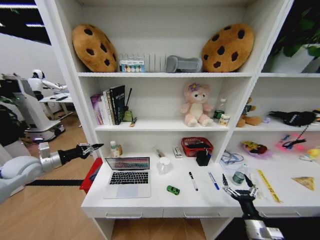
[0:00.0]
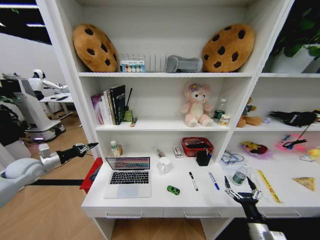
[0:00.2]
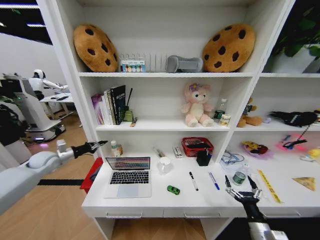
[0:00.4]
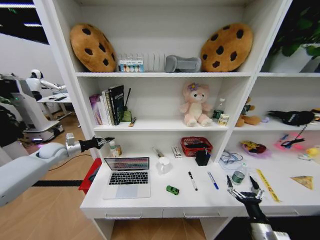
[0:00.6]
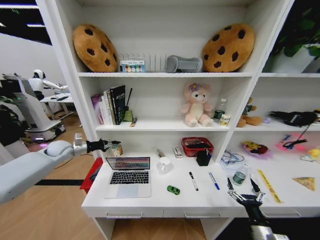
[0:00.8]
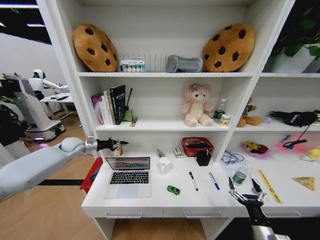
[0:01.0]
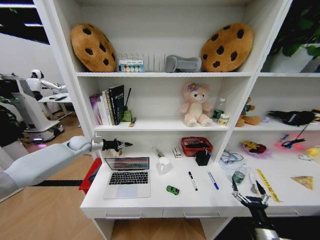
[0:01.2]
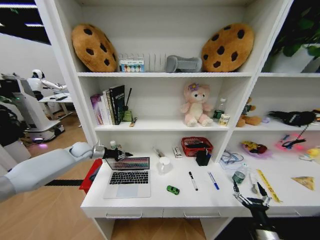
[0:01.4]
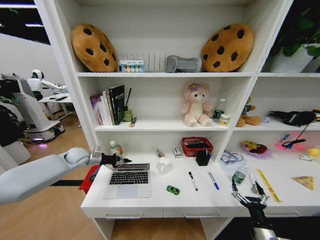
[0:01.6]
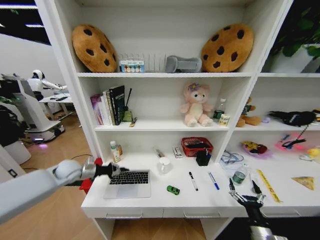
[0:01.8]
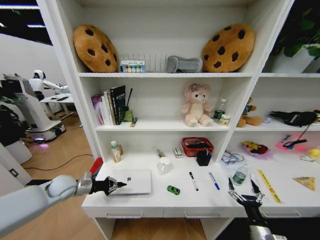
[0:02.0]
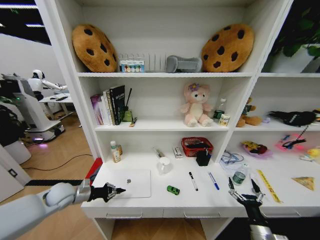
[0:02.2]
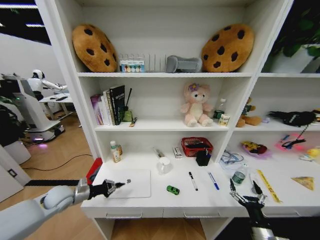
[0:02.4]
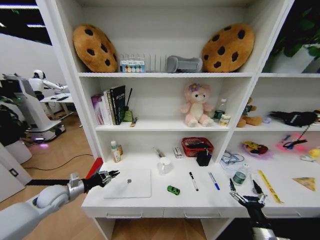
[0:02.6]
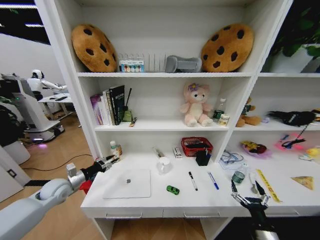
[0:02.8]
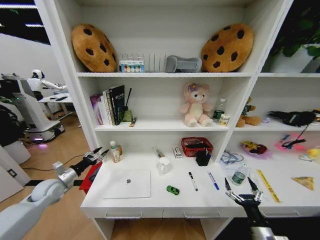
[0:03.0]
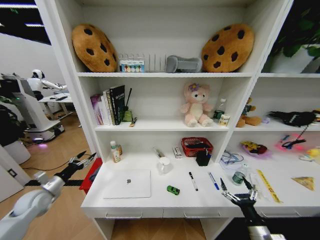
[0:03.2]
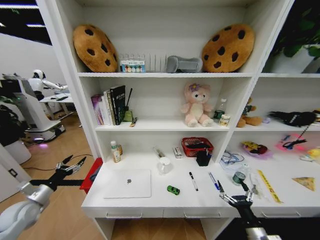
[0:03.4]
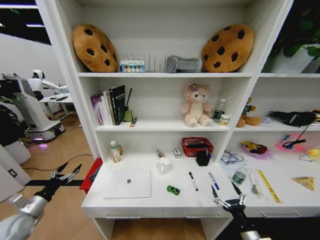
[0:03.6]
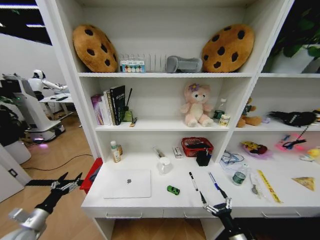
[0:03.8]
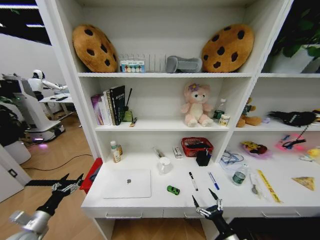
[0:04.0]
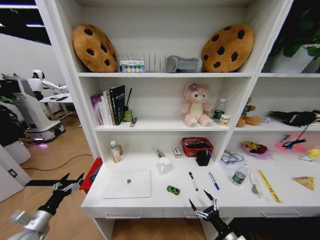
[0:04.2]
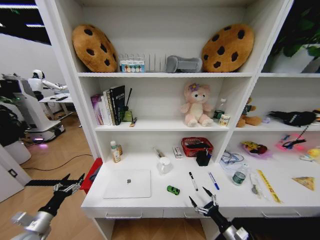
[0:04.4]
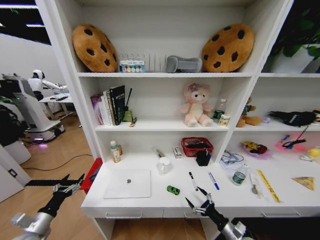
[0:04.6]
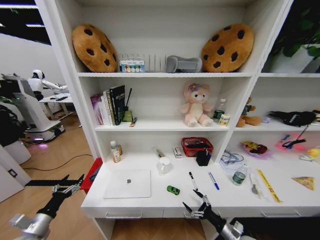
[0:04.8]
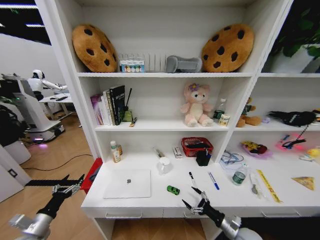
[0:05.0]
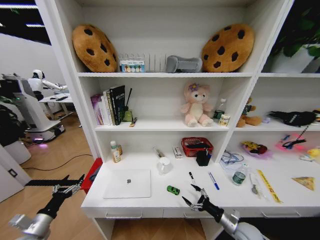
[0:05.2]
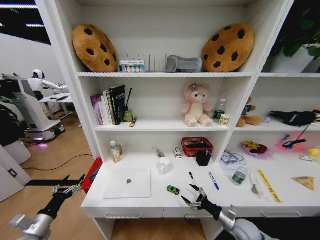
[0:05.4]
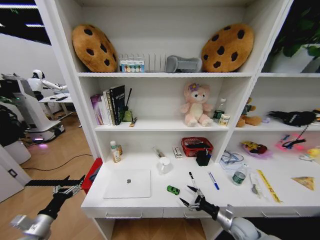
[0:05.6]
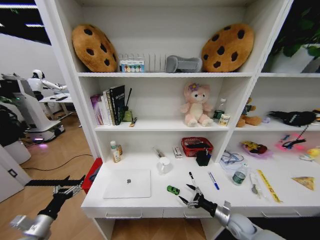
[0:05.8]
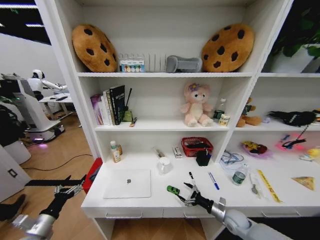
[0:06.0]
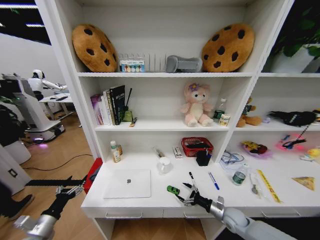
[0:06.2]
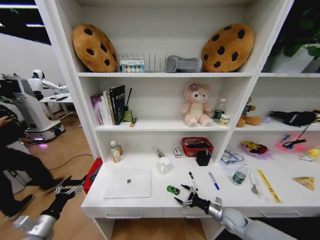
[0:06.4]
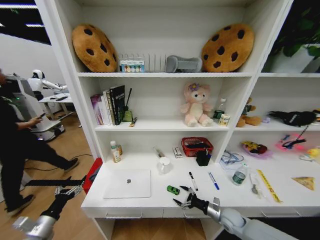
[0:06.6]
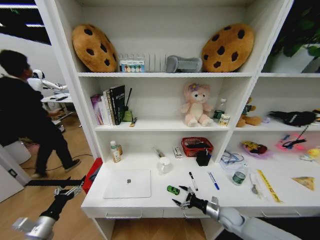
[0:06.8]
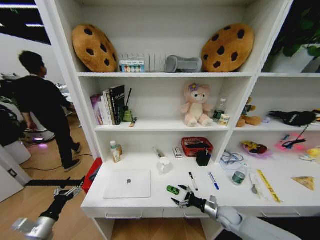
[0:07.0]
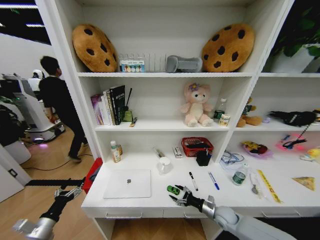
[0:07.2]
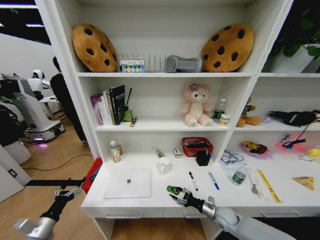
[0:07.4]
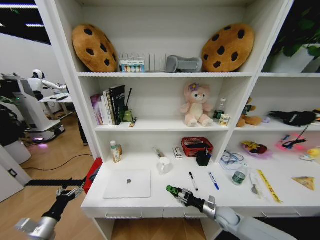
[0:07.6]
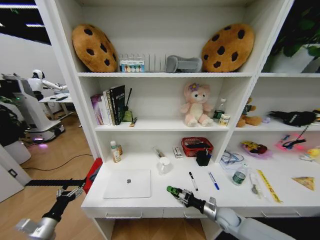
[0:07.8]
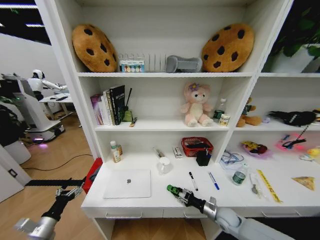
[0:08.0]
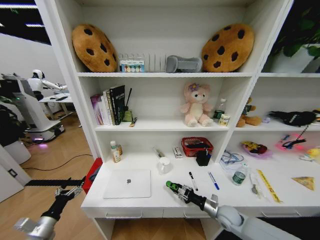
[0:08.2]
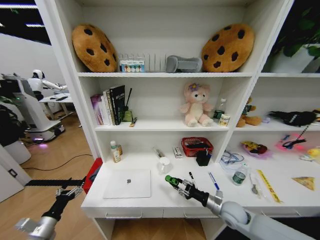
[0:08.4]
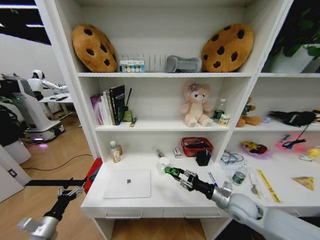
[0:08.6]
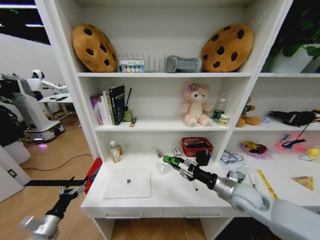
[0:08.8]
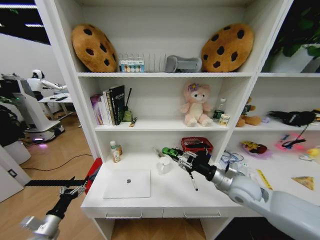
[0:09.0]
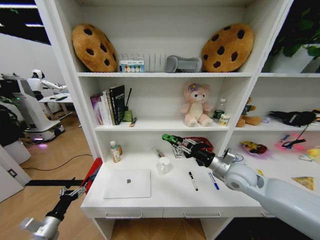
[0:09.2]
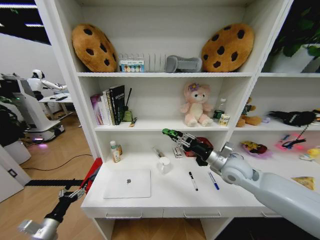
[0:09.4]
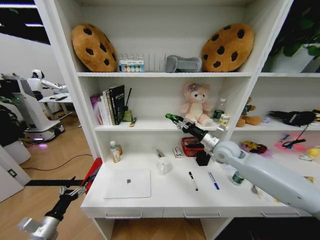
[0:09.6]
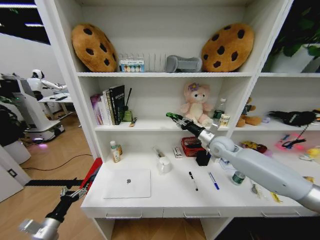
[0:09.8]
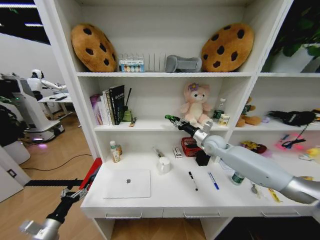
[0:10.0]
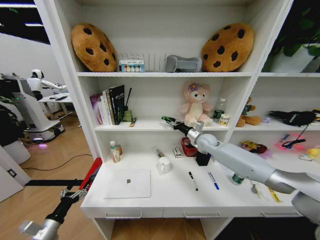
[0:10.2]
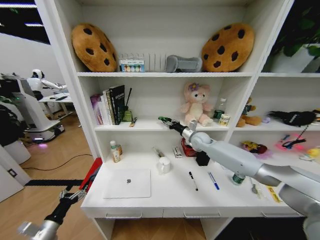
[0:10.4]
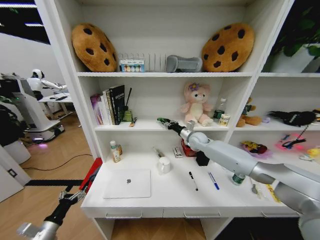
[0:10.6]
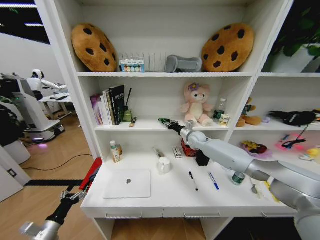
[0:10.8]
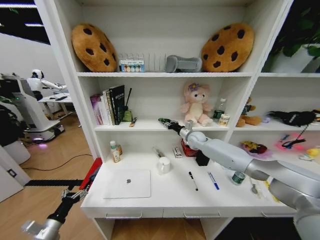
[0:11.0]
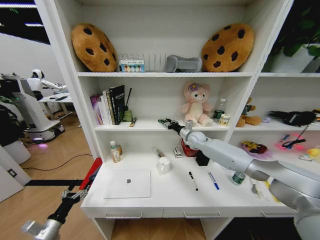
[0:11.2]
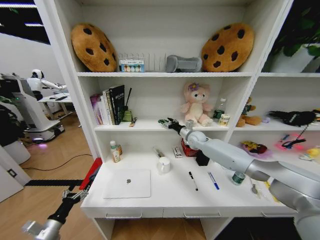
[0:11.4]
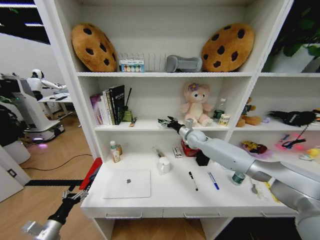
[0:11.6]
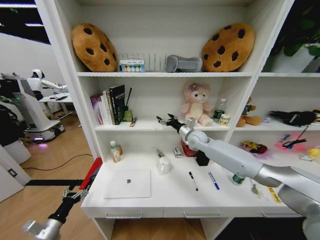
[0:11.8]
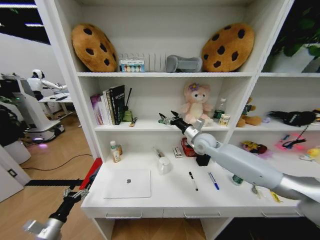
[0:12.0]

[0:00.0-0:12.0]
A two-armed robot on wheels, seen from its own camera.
Task of the whole recording: Organize the objects on the table.
0:00.0 to 0:01.6: The left gripper is displaced to the right, forward and downward by approximately 15 cm.
0:01.6 to 0:03.0: The left gripper heads backward, to the left and downward, covering approximately 15 cm, and opens.
0:03.0 to 0:04.4: The left gripper goes some 20 cm backward and downward, and opens its fingers. The right gripper goes roughly 5 cm downward.
0:04.4 to 0:06.0: The right gripper is displaced forward by about 10 cm.
0:06.0 to 0:07.6: The right gripper closes.
0:07.6 to 0:09.0: The right gripper moves upward, approximately 25 cm.
0:09.0 to 0:10.4: The right gripper travels forward by about 25 cm.
0:10.4 to 0:12.0: The right gripper goes approximately 5 cm backward, and opens.

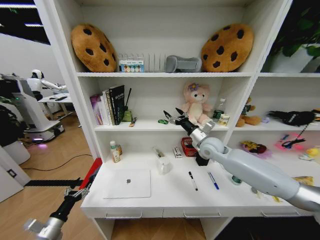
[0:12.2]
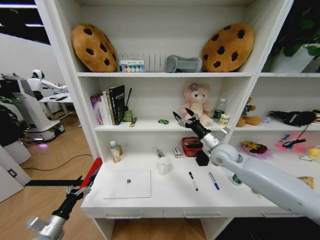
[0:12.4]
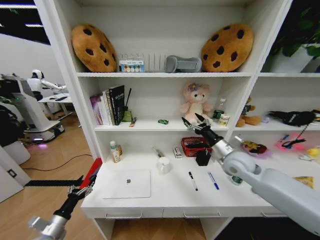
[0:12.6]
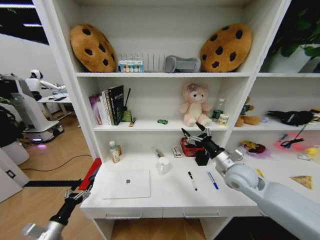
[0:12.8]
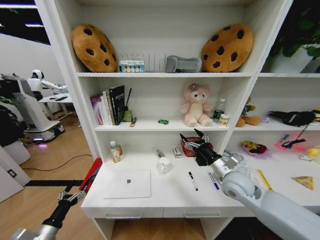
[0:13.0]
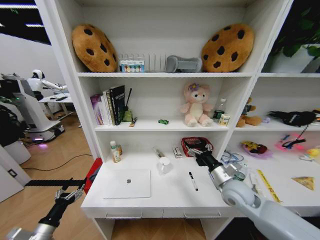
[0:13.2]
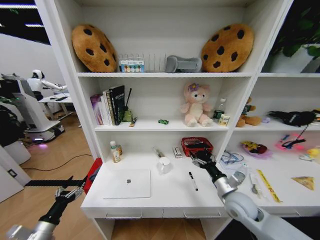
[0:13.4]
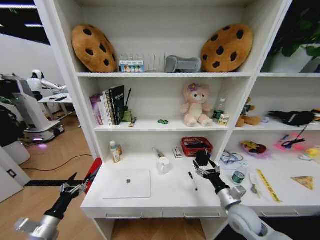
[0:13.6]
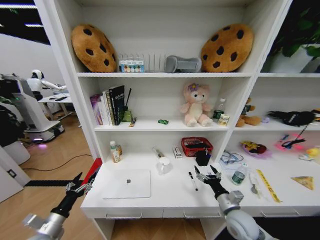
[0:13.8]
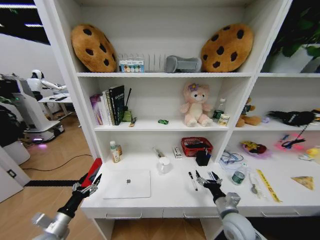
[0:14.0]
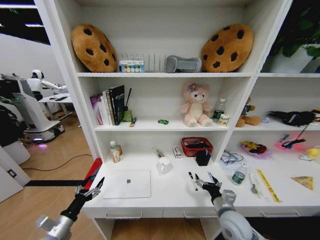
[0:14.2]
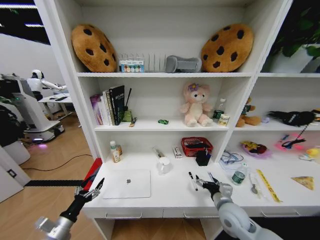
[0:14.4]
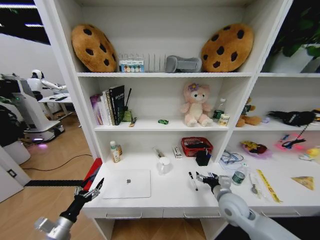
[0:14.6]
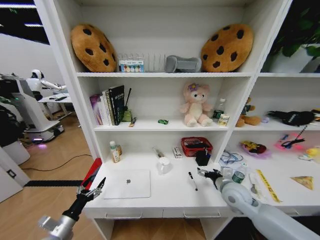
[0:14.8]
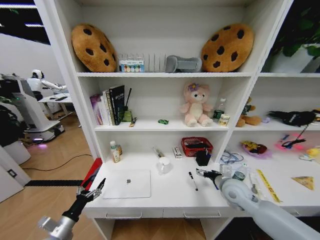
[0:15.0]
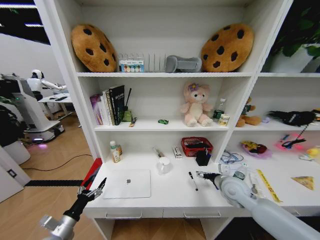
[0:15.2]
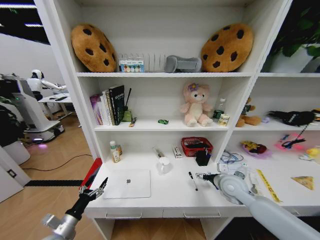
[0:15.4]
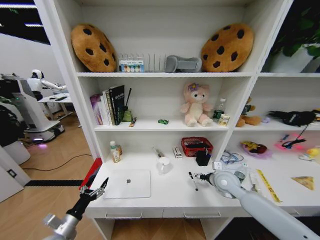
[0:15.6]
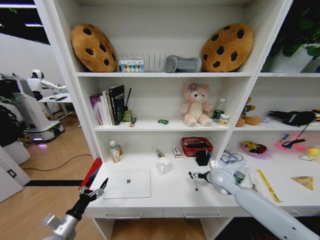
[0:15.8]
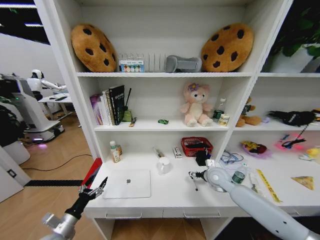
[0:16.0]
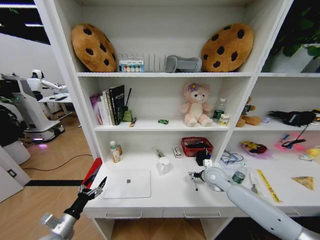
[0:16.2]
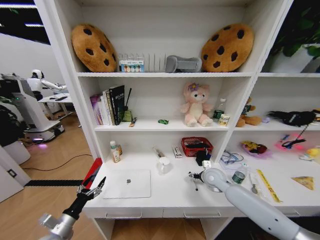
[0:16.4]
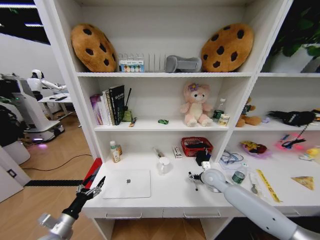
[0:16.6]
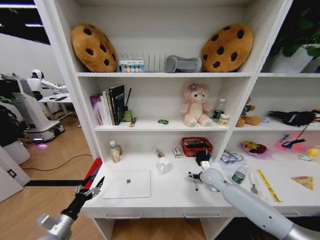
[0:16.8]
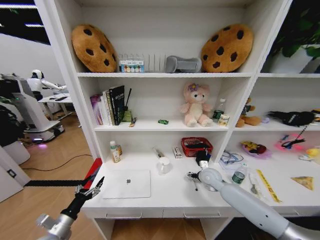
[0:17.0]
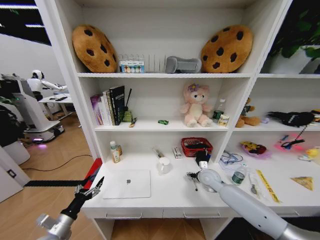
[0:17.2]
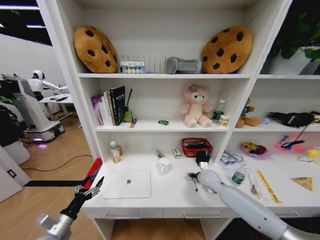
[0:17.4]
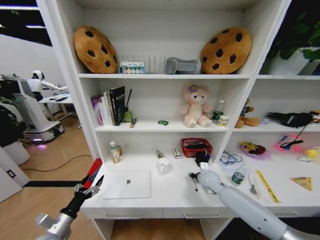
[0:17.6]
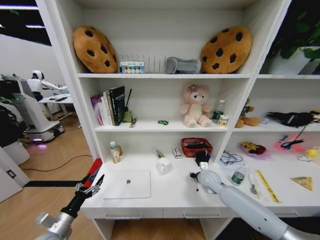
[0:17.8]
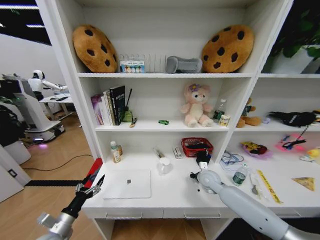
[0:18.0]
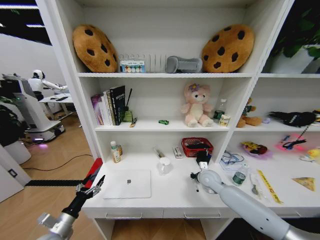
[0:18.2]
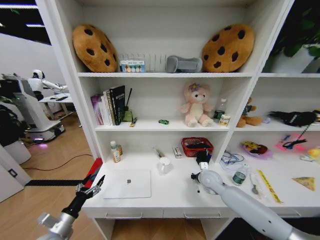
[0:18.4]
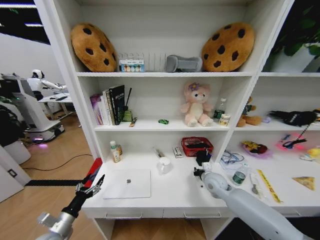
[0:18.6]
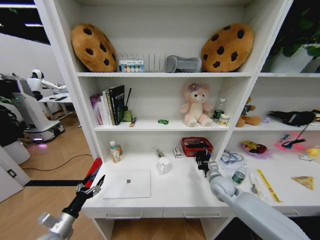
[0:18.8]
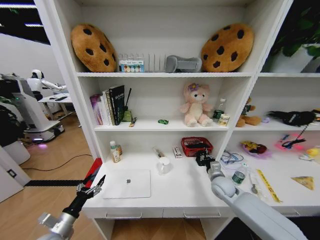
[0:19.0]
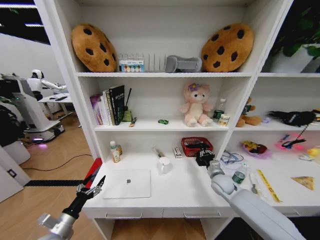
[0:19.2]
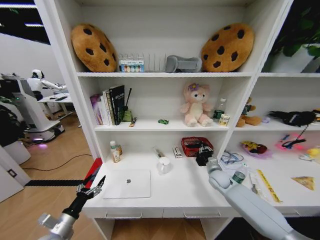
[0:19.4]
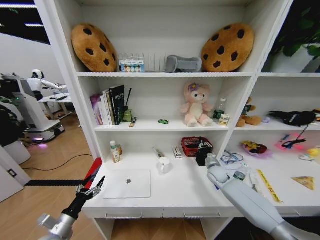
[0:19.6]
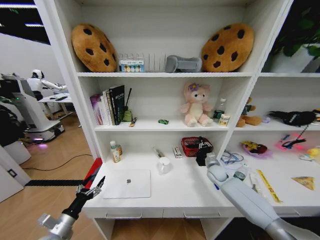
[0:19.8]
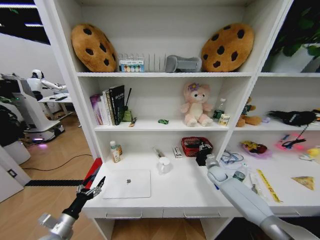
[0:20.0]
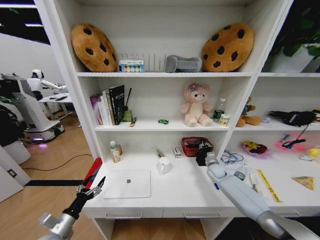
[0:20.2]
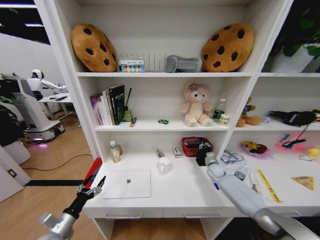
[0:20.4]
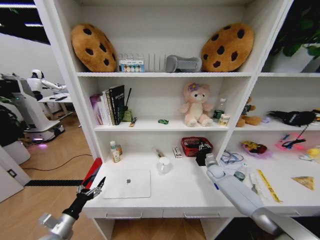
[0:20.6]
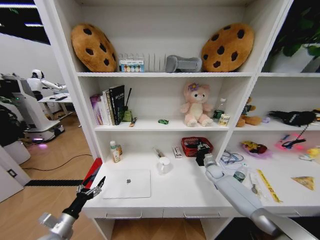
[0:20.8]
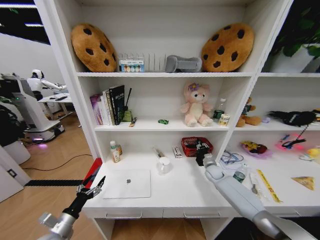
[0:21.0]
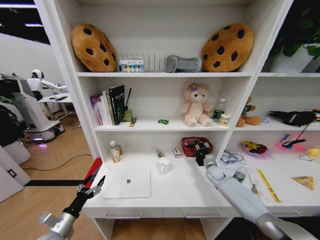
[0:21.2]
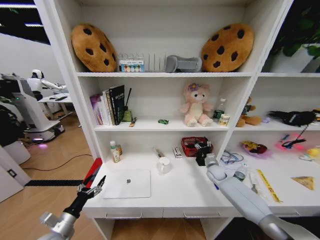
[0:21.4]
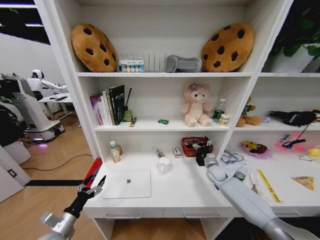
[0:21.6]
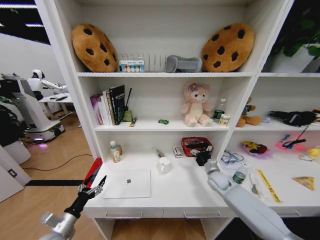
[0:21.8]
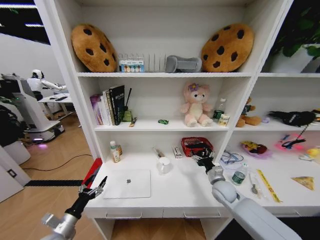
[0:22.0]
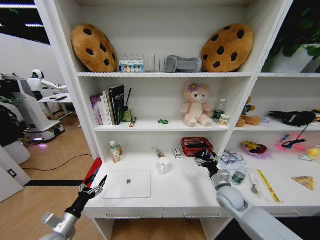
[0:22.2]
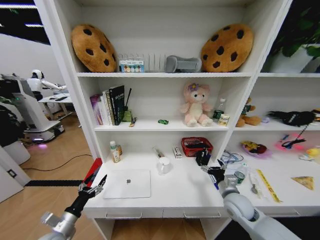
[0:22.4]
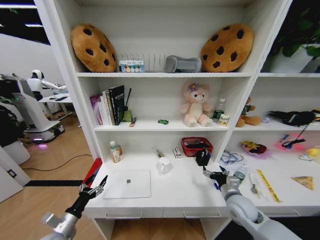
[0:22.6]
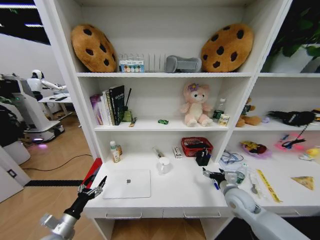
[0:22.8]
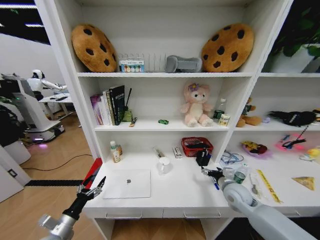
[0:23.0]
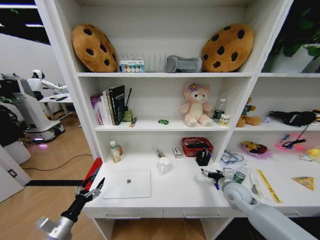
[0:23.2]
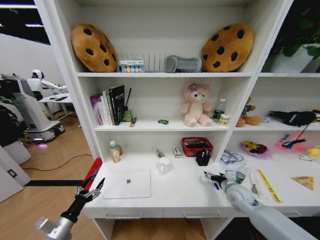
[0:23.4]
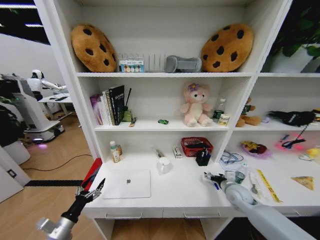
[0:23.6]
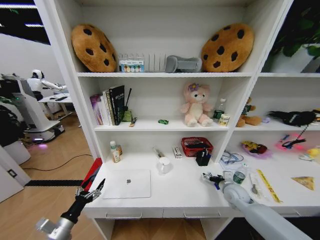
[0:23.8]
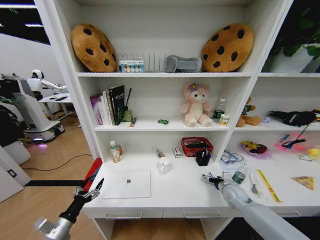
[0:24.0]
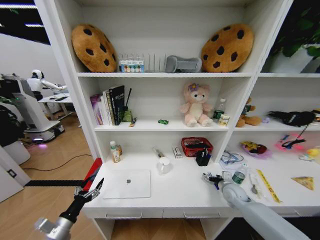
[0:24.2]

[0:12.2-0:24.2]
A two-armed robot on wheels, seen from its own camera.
Task of the whole recording: Organize the objects on the table.
0:12.2 to 0:13.8: The right gripper moves backward and downward, some 30 cm.
0:13.8 to 0:15.2: The right gripper shifts roughly 15 cm forward and upward.
0:15.2 to 0:16.6: The right gripper travels forward and downward by some 10 cm.
0:16.6 to 0:18.2: The right gripper closes up.
0:18.2 to 0:19.8: The right gripper is displaced to the right and forward by about 10 cm.
0:21.2 to 0:22.6: The right gripper travels backward by roughly 20 cm, and opens its fingers.
0:22.6 to 0:24.2: The right gripper is displaced forward, downward and to the right by roughly 10 cm.
